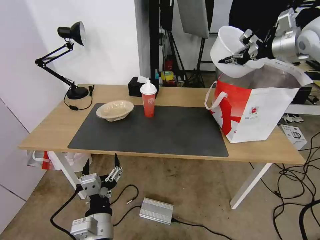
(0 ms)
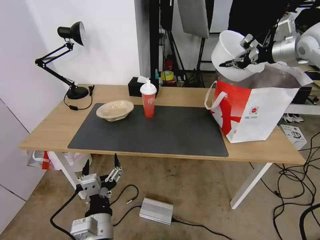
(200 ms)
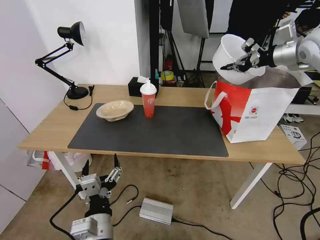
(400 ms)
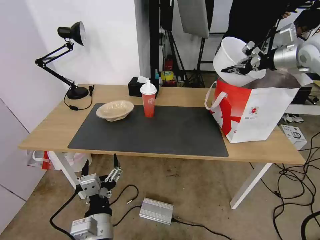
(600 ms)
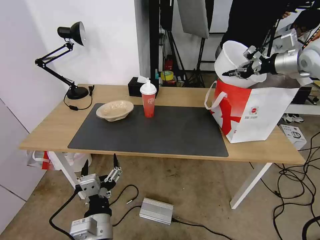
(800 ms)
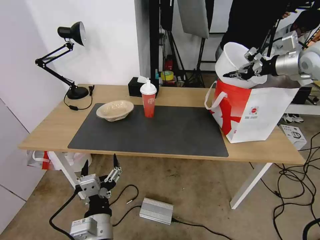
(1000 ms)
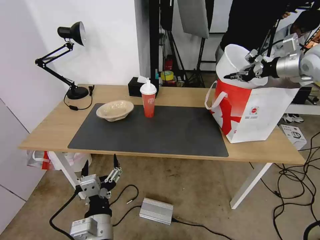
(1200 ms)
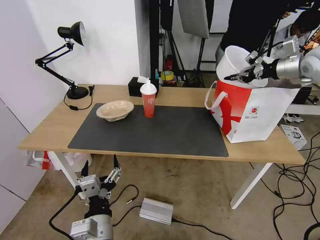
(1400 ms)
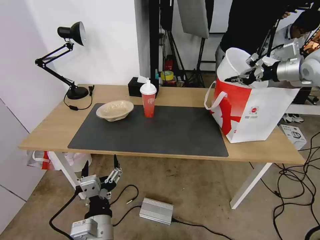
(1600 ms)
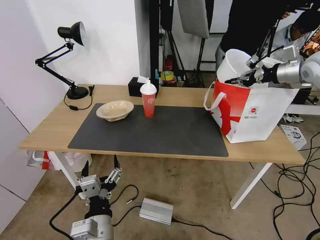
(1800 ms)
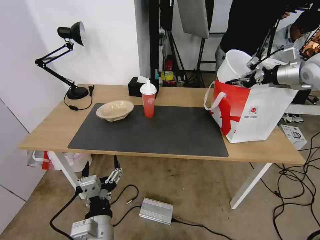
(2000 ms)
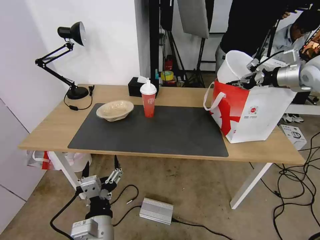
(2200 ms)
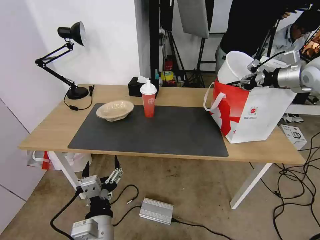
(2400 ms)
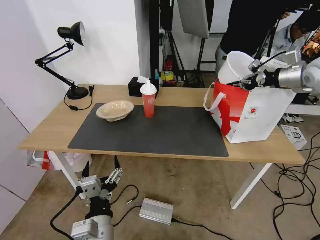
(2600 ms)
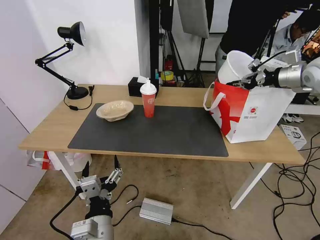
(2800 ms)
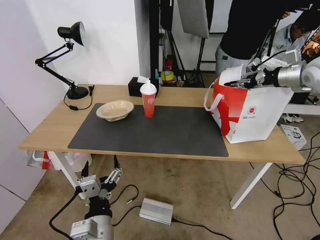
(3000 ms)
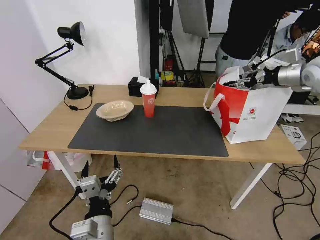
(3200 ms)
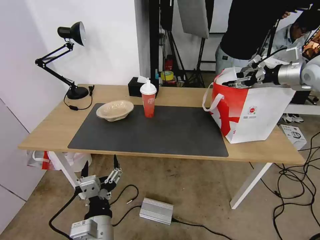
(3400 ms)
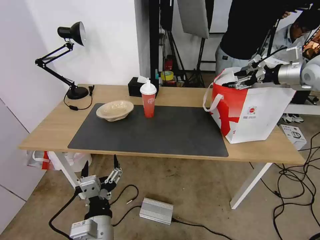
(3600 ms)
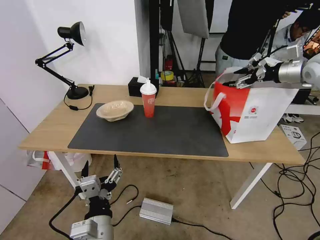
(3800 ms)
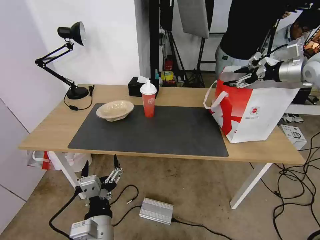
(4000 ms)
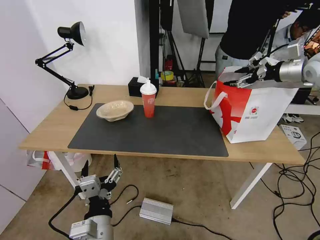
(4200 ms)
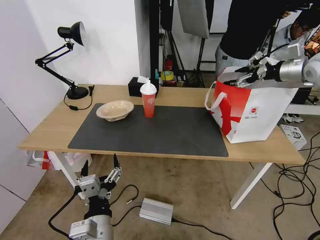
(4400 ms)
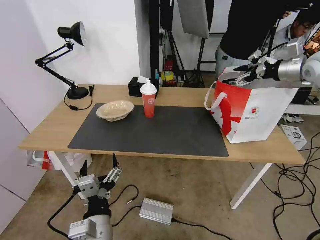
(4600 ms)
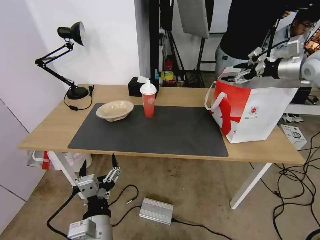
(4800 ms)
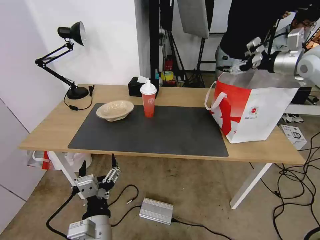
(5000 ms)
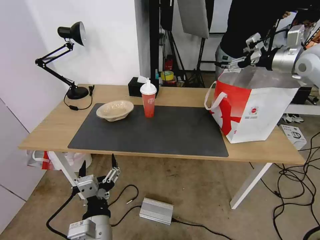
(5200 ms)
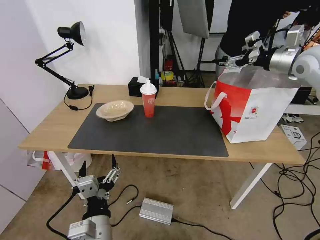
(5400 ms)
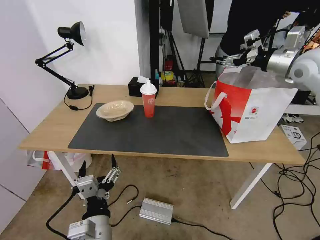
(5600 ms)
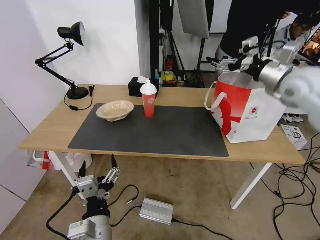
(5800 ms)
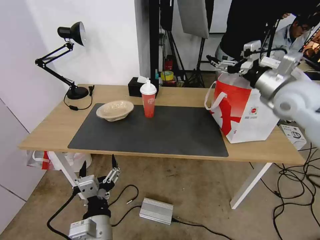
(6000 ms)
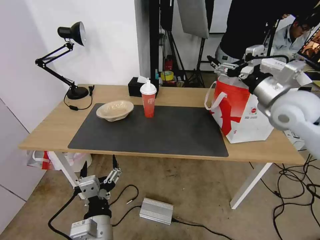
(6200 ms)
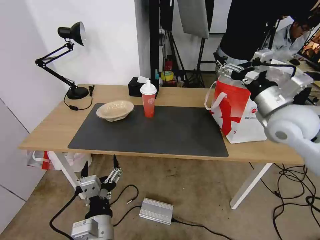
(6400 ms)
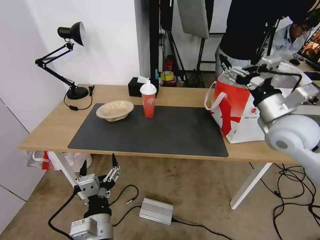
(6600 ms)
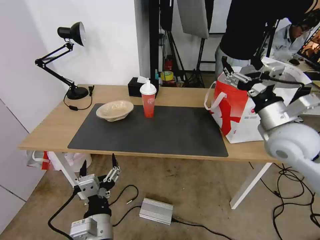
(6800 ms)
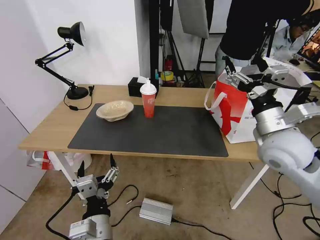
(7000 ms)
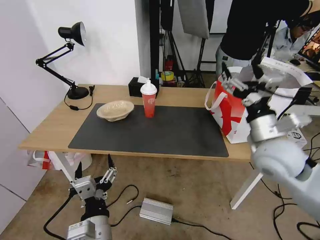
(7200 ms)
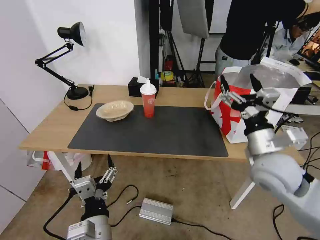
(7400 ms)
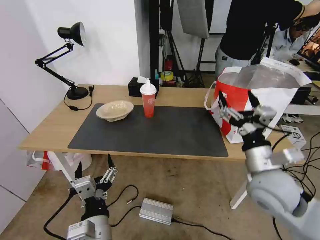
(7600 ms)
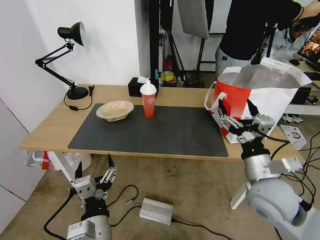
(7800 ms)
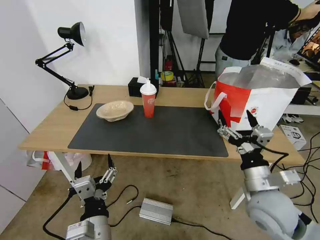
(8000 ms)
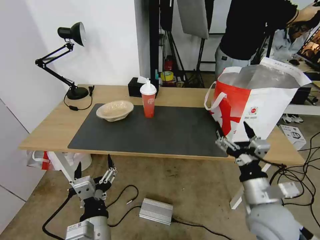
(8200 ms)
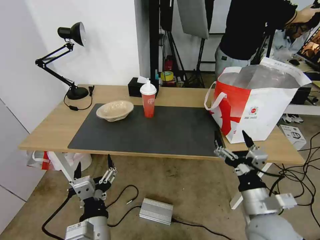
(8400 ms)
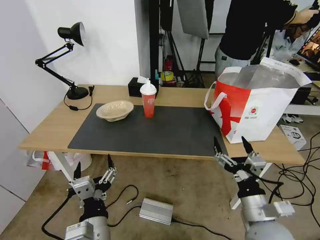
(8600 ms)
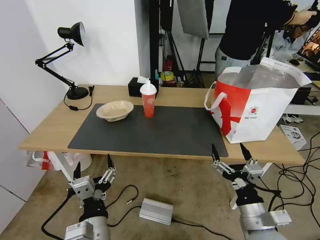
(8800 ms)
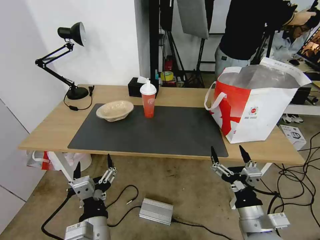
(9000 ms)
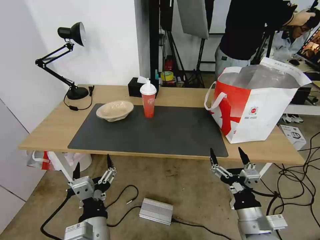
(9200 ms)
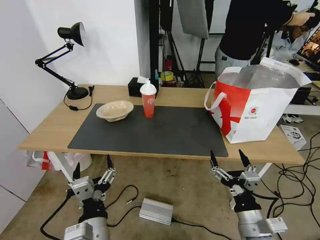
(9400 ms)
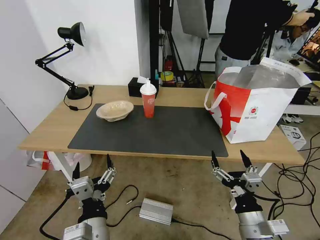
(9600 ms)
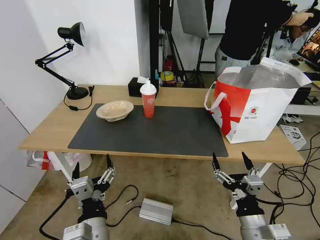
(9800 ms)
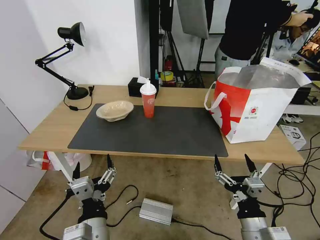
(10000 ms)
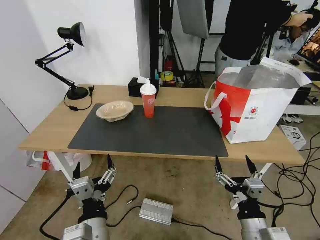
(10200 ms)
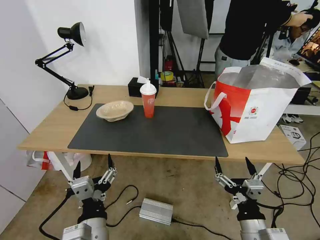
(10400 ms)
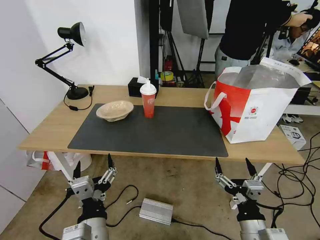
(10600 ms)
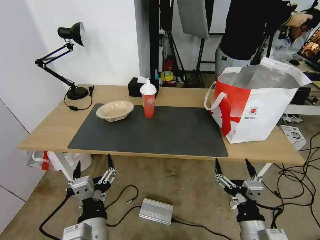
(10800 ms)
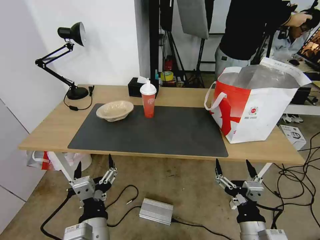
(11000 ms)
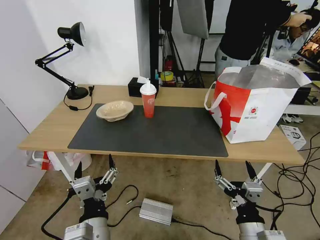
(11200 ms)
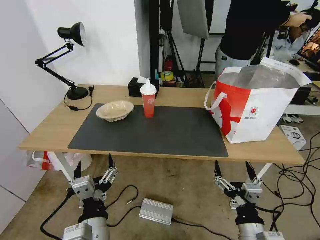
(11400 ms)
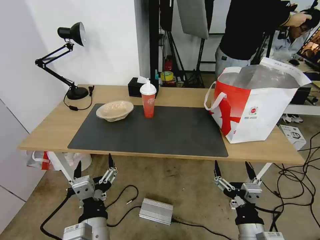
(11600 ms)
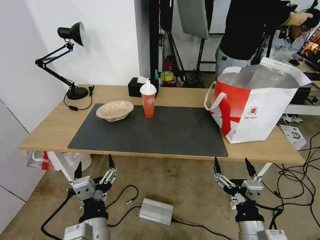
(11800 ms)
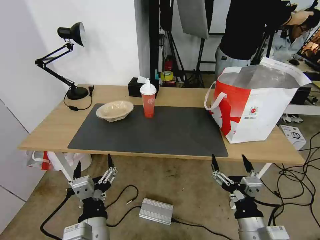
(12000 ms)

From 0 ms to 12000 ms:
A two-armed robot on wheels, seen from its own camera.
Task of the whole recording: Pick up the trash from the table and place it into the takeout bag.
From 0 ms to 1600 ms: The right gripper is displaced downward by some 5 cm.
From 1600 ms to 3000 ms: The grippers move only a little.
From 3000 ms to 4400 ms: The right gripper opens its fingers.
From 4400 ms to 6000 ms: The right gripper heads to the left, backward and downward, covering some 15 cm.
From 6000 ms to 7600 ms: The right gripper heads backward, downward and to the left, covering about 25 cm.
From 7600 ms to 9000 ms: The right gripper goes roughly 15 cm backward and downward.
From 9000 ms to 12000 ms: The grippers stay close to where they were, moving slightly.

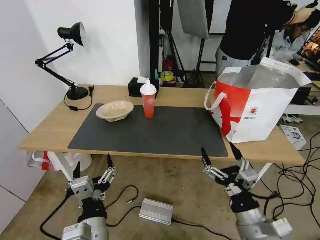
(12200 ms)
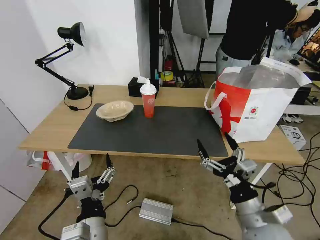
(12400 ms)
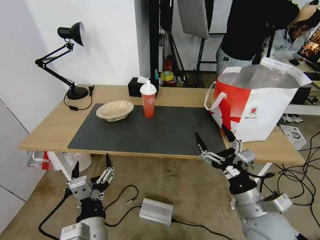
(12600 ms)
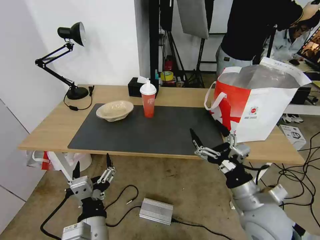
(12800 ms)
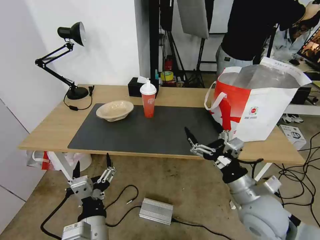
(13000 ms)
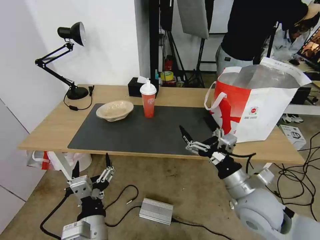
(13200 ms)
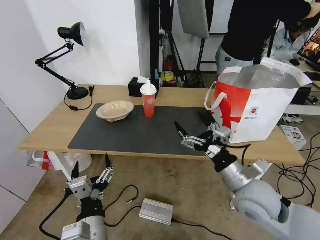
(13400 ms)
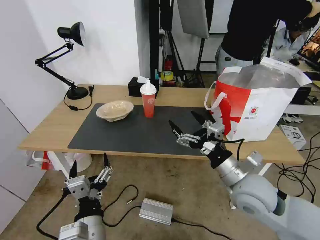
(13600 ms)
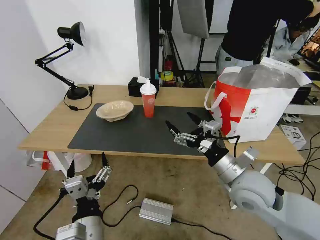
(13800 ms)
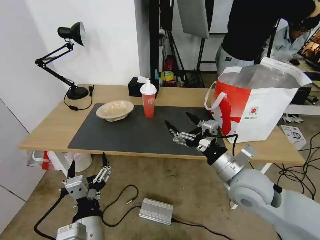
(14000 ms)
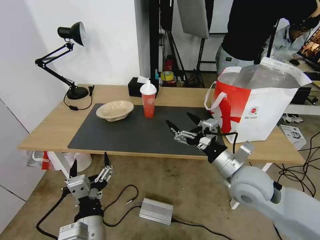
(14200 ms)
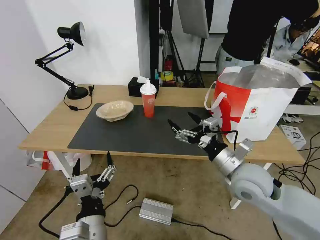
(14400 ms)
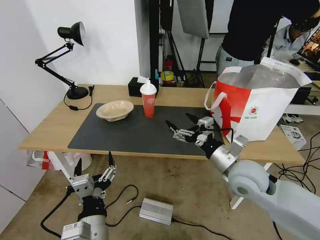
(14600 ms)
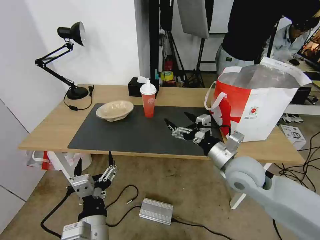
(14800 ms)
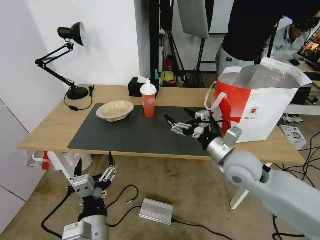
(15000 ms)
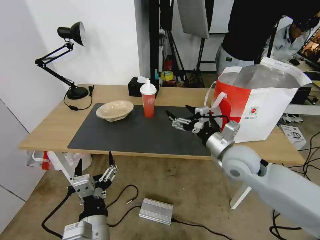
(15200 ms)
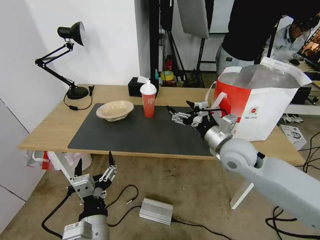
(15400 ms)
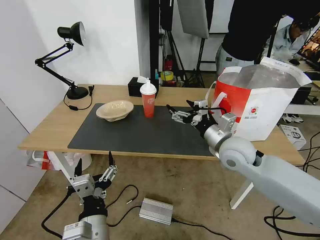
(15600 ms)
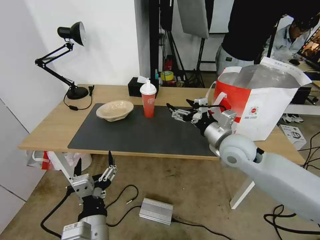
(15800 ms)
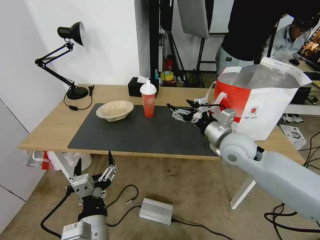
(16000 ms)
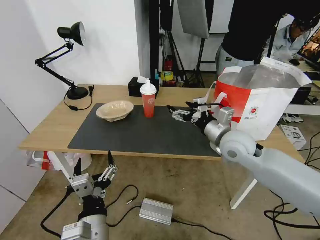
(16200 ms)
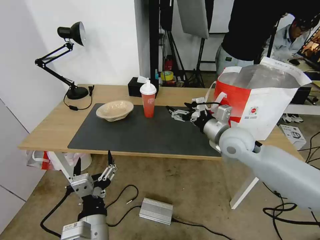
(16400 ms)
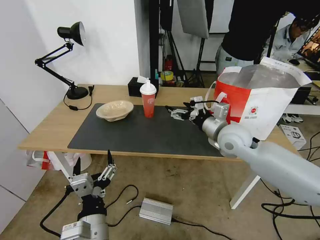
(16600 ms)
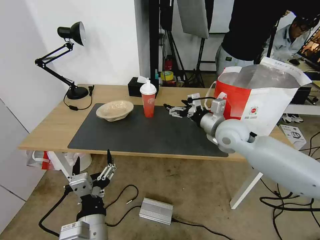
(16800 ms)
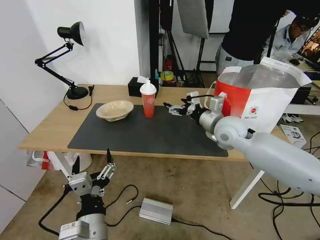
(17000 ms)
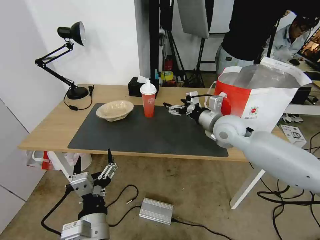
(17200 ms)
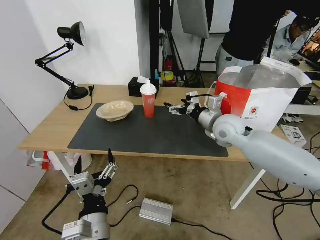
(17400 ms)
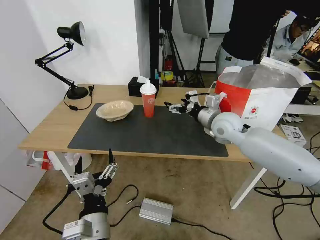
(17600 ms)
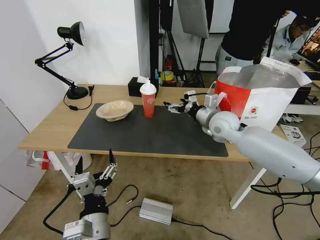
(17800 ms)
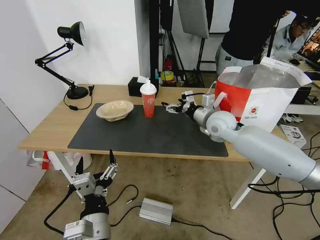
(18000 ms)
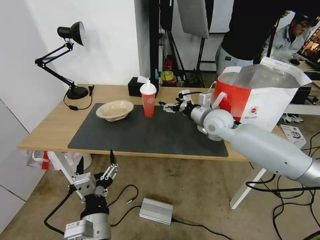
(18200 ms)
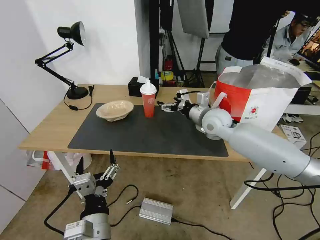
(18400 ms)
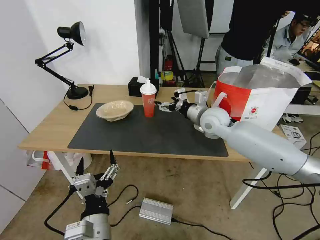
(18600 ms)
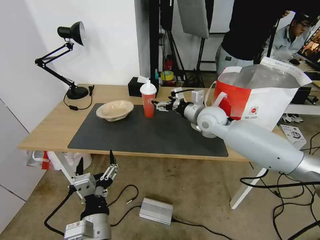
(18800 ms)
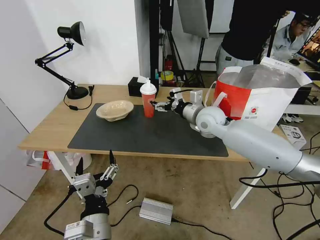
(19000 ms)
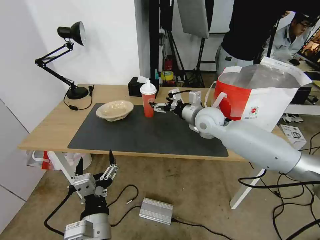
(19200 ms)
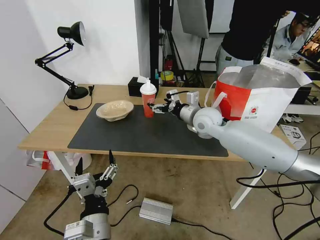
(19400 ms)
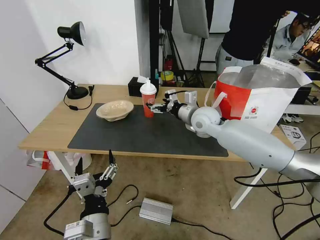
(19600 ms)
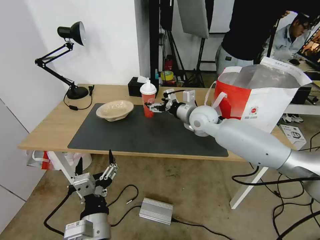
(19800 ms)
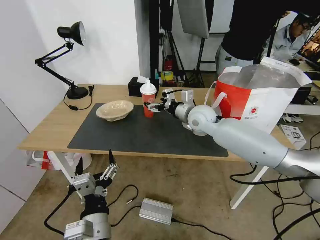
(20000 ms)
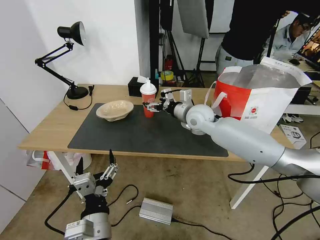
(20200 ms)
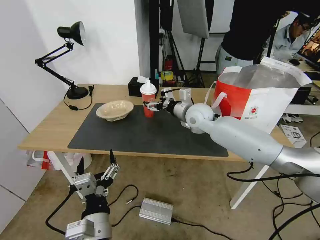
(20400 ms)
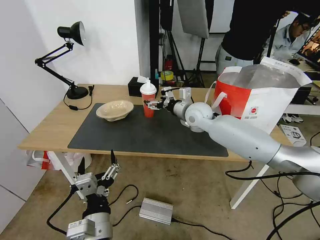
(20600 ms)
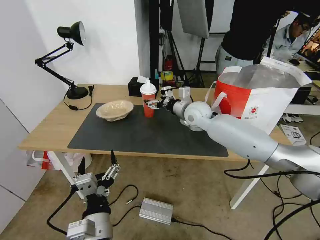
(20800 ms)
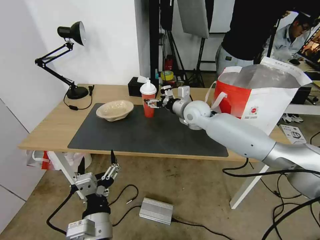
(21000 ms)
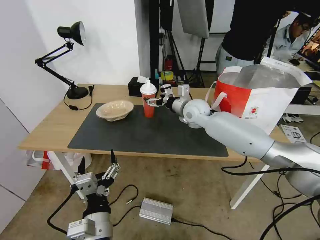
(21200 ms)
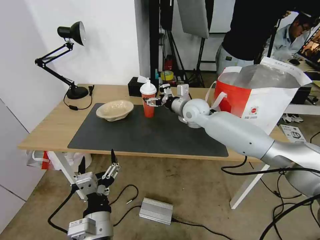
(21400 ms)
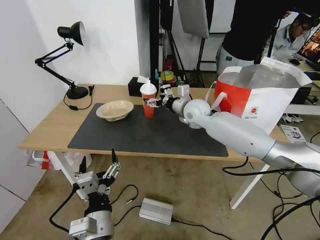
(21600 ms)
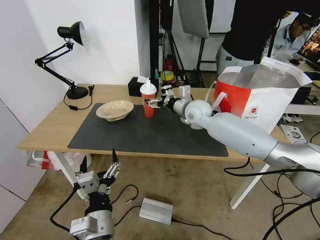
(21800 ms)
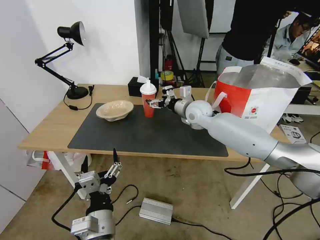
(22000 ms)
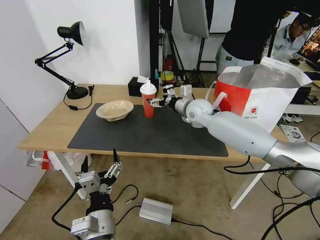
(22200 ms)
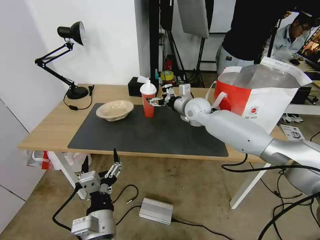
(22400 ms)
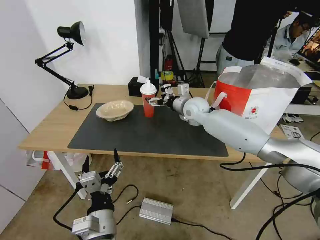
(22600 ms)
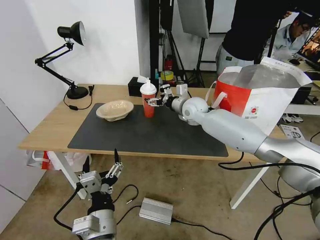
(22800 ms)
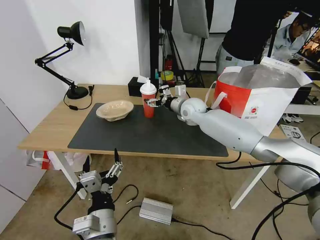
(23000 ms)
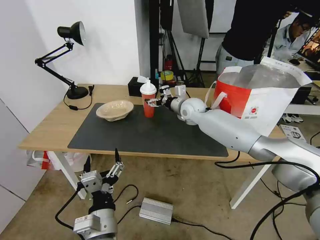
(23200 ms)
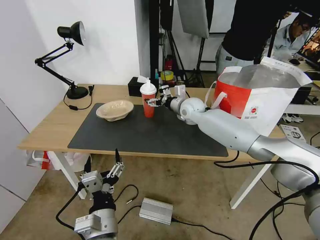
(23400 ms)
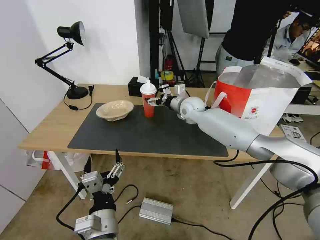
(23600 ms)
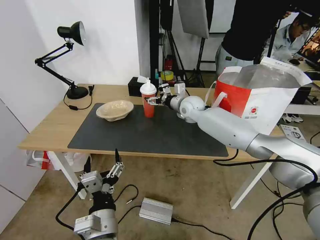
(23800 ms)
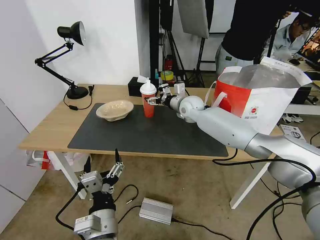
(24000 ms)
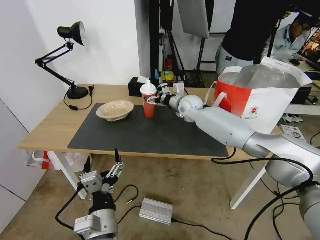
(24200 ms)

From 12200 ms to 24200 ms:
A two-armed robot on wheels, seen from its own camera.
Task of the whole recording: Pick up the trash from the table and place it into the takeout bag.
From 12200 ms to 13800 ms: The right gripper heads forward and upward, covering approximately 15 cm.
From 13800 ms to 15200 ms: The right gripper travels forward by some 5 cm.
From 15200 ms to 16600 ms: The right gripper travels forward by roughly 5 cm.
From 16600 ms to 18200 ms: The right gripper heads forward, covering approximately 10 cm.
From 18200 ms to 19800 ms: The right gripper moves about 5 cm.
From 19800 ms to 21200 ms: The grippers move only a little.
From 21200 ms to 24200 ms: There are only small adjustments of the grippers.
